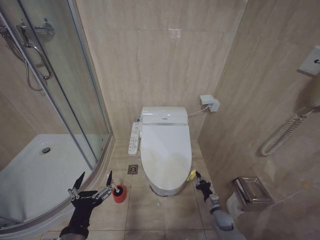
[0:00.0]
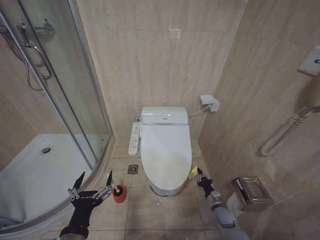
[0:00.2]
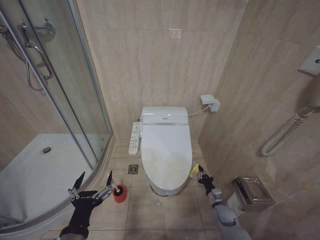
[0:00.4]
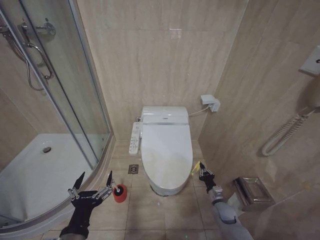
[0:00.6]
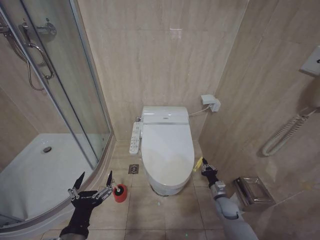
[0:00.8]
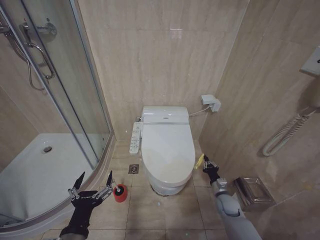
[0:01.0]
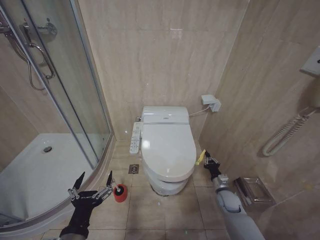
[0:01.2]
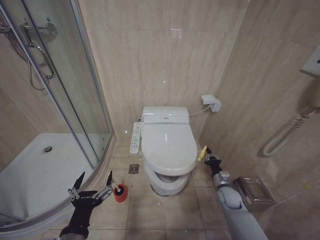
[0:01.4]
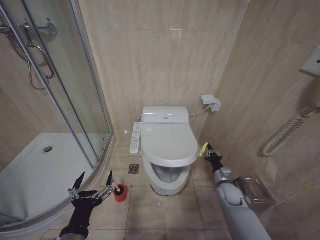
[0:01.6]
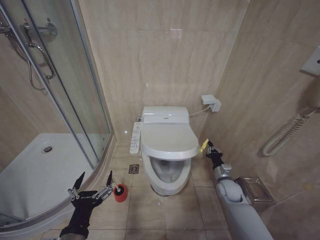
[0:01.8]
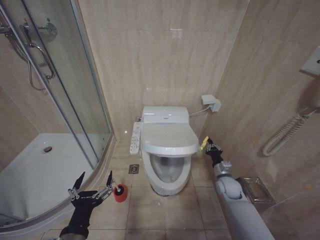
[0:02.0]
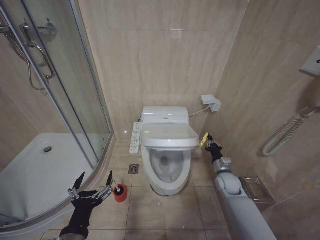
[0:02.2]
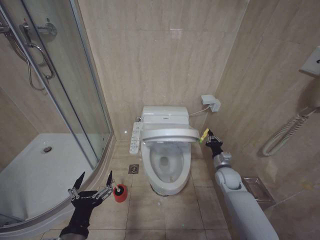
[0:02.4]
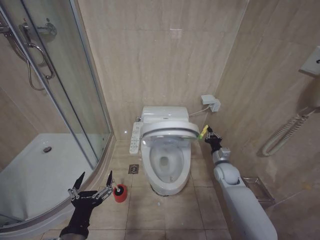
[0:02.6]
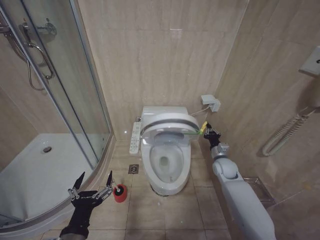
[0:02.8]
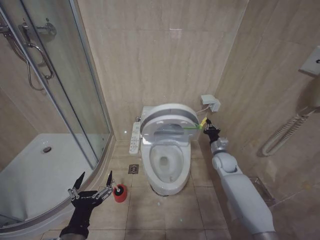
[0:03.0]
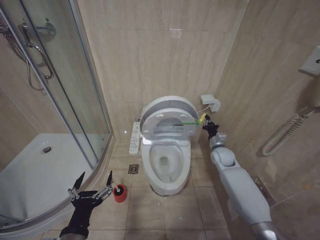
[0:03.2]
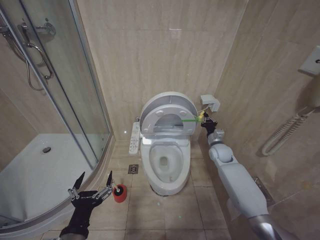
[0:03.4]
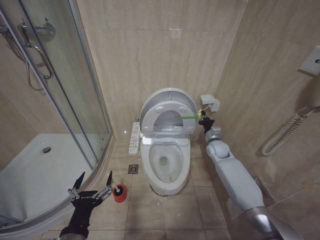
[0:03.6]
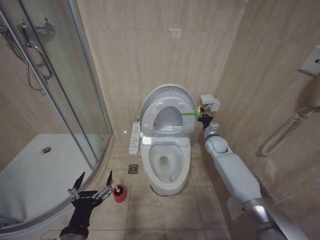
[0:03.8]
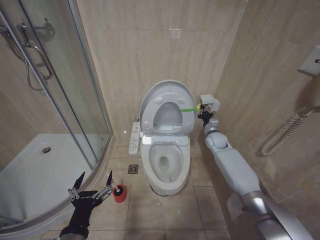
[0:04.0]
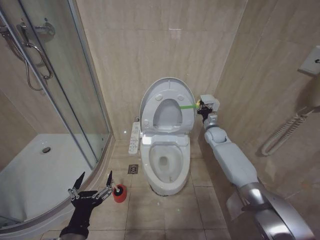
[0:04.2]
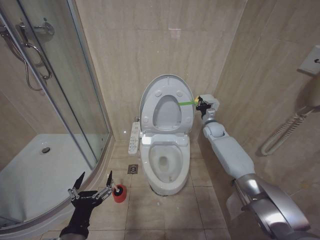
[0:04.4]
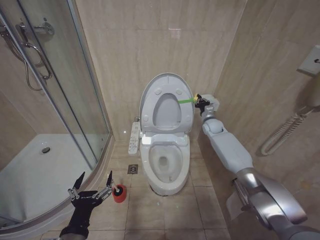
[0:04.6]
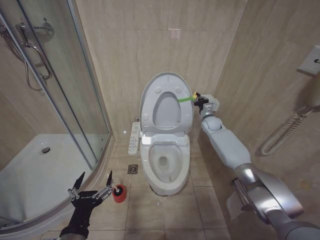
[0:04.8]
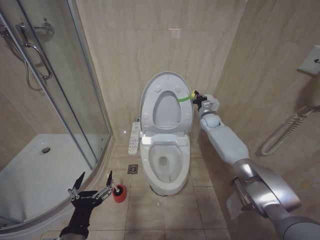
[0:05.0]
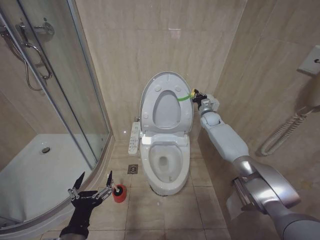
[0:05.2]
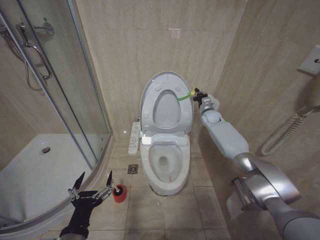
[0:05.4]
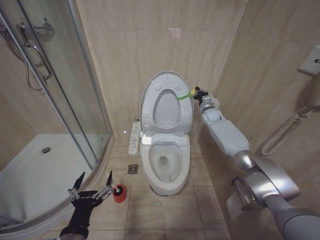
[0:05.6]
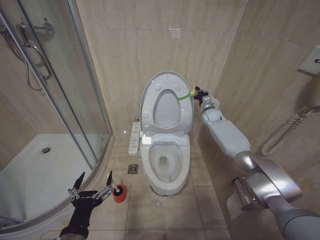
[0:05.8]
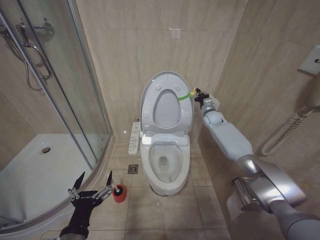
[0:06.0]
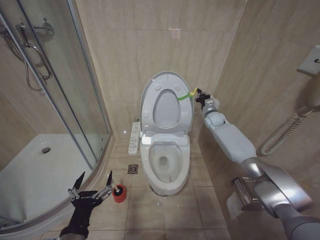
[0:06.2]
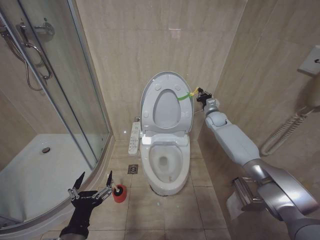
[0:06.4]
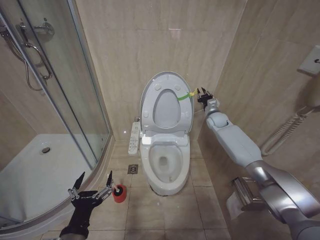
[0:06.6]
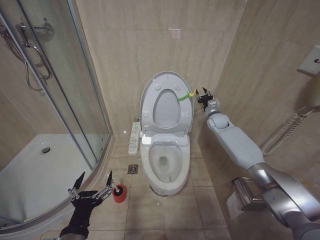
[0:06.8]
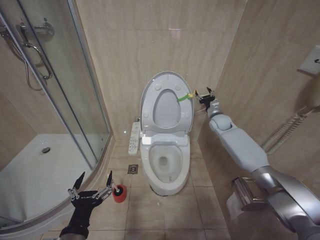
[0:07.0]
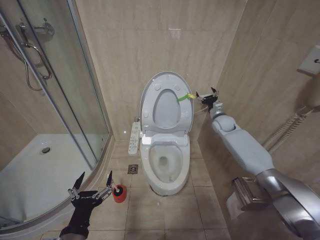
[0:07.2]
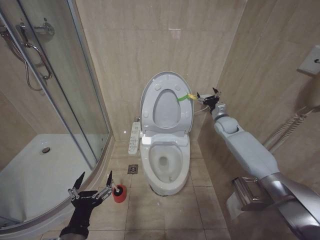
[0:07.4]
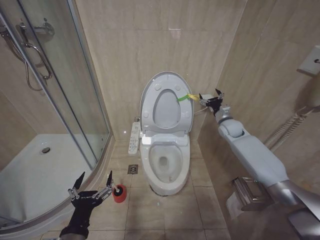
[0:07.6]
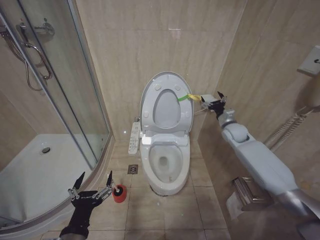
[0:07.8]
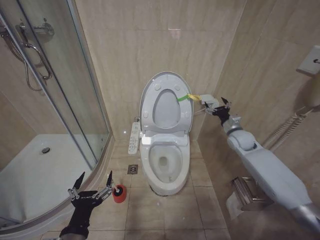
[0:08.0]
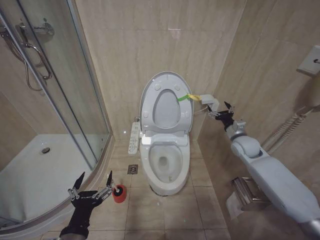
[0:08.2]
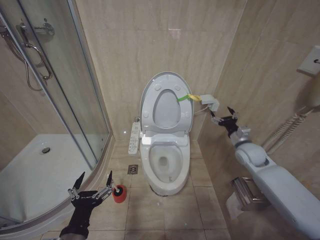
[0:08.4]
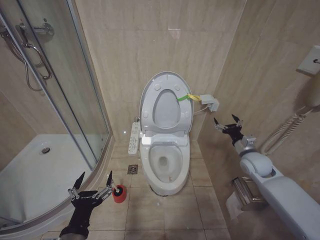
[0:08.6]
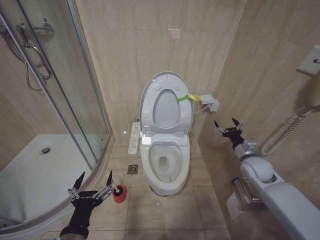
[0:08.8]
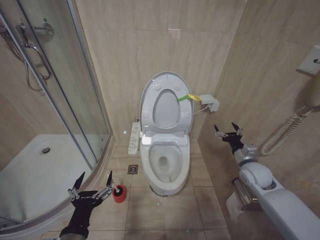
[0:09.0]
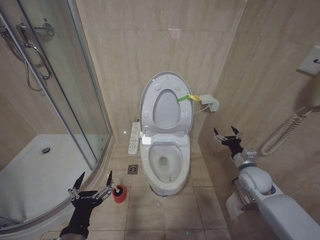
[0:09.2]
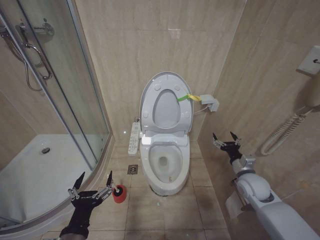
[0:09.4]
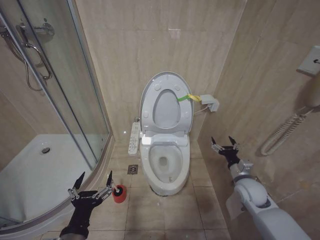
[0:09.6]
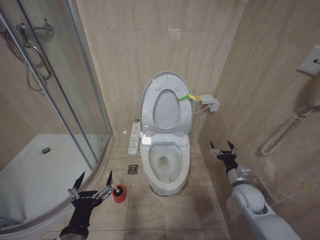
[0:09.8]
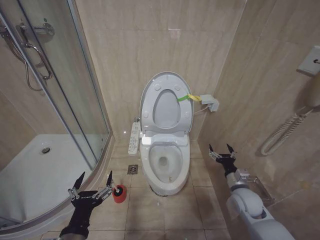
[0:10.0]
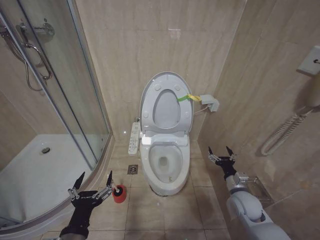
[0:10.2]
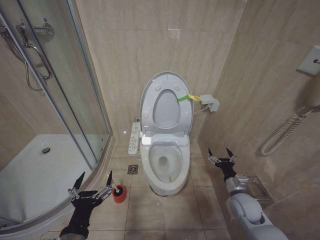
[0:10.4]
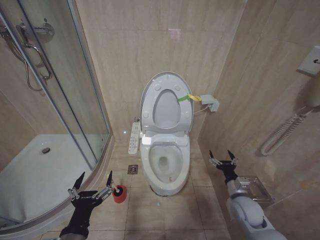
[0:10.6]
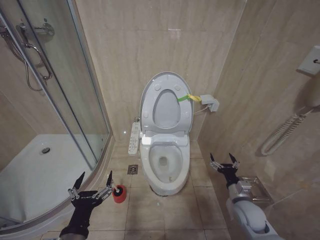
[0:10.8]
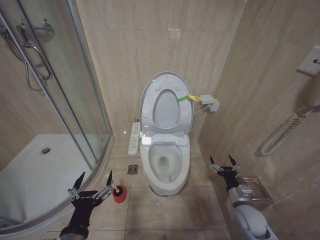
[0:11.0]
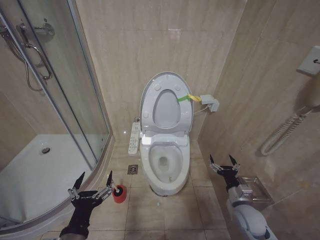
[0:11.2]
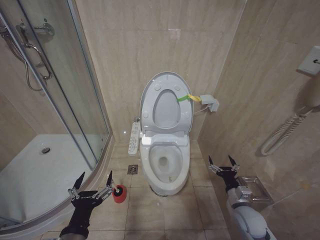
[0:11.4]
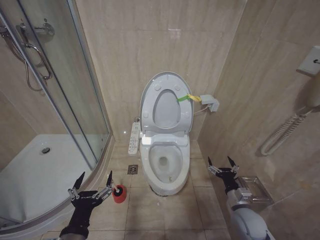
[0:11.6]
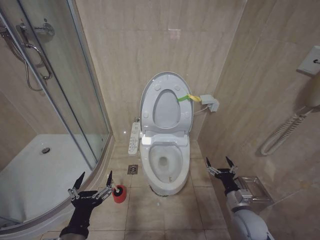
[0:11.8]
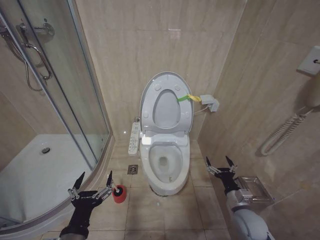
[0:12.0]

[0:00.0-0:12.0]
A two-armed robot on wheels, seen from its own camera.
Task of the whole recording: Open the toilet lid, clean the toilet bowl with a toilet brush, close the toilet lid, and flush.
0:00.0 to 0:01.6: The right gripper is displaced upward and forward by approximately 15 cm.
0:01.6 to 0:03.0: The right gripper moves upward and forward, approximately 15 cm.
0:03.0 to 0:04.4: The right gripper shifts roughly 15 cm forward and upward.
0:04.4 to 0:06.0: The right gripper goes roughly 5 cm forward and upward.
0:06.0 to 0:07.6: The right gripper is displaced backward by about 10 cm, and opens.
0:07.6 to 0:09.0: The right gripper moves backward and downward, about 20 cm.
0:09.0 to 0:10.4: The right gripper shifts some 15 cm downward, backward and to the left.
0:10.4 to 0:12.0: The right gripper goes about 5 cm backward.

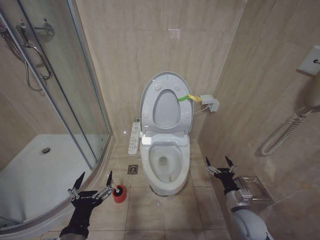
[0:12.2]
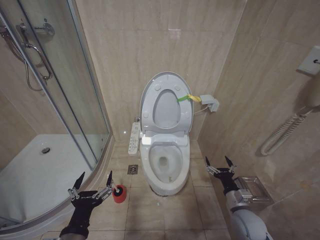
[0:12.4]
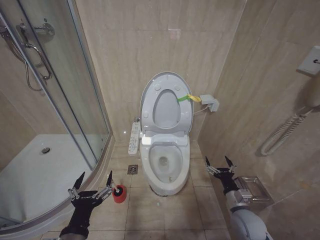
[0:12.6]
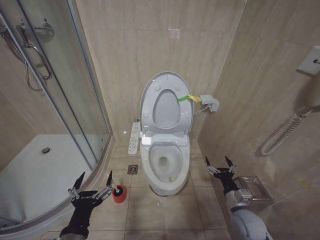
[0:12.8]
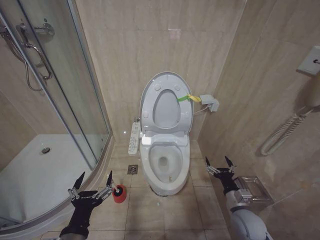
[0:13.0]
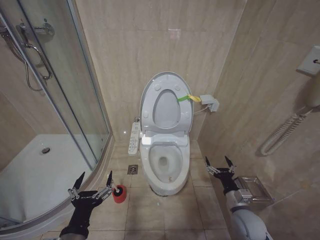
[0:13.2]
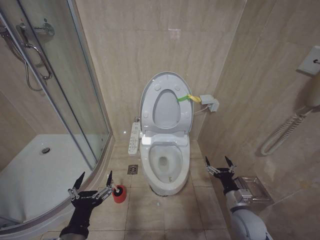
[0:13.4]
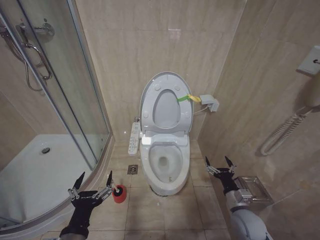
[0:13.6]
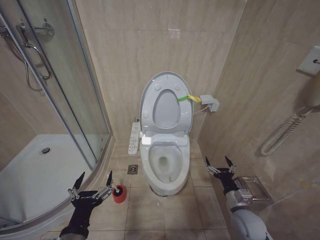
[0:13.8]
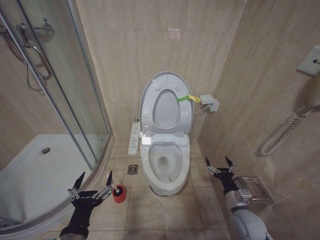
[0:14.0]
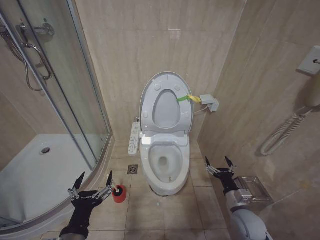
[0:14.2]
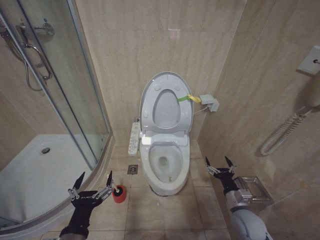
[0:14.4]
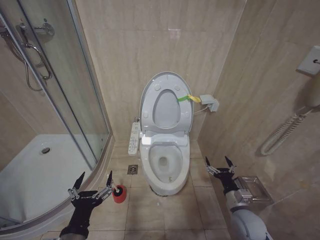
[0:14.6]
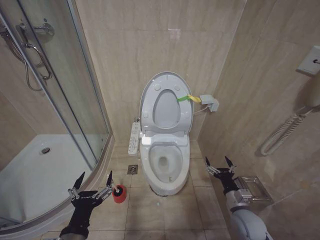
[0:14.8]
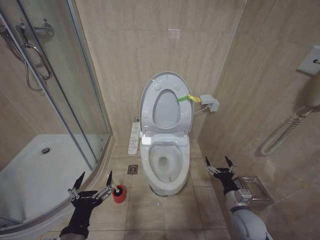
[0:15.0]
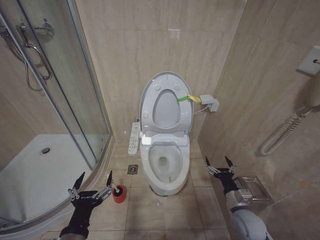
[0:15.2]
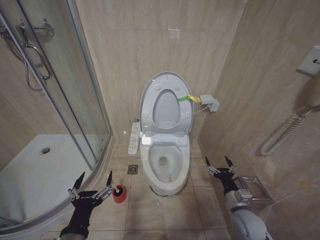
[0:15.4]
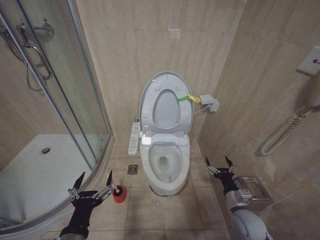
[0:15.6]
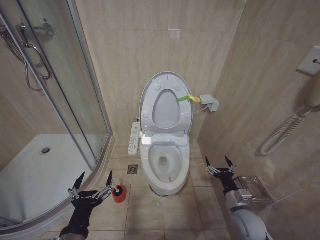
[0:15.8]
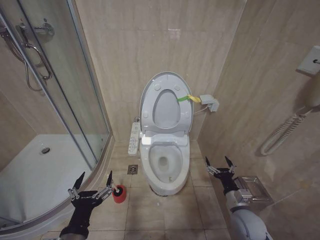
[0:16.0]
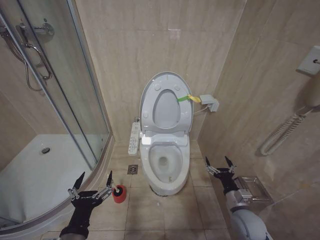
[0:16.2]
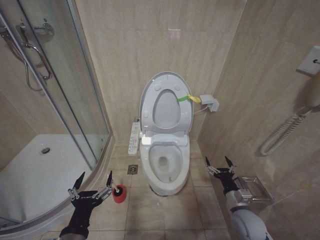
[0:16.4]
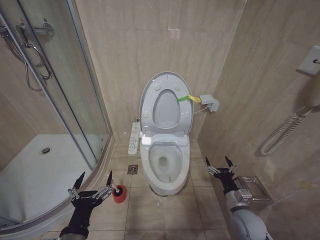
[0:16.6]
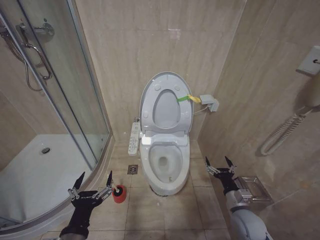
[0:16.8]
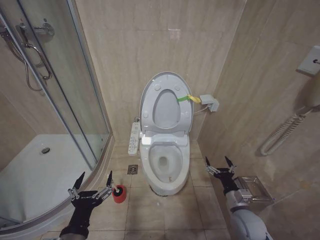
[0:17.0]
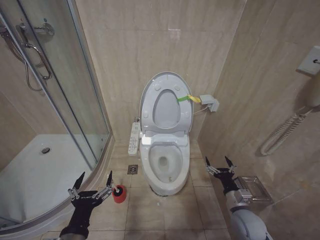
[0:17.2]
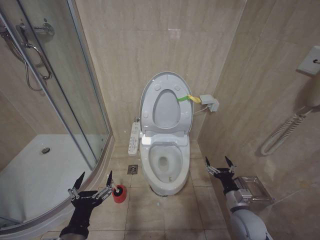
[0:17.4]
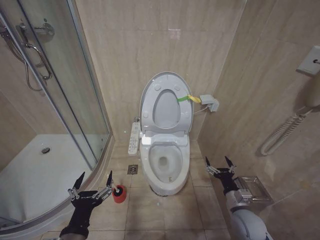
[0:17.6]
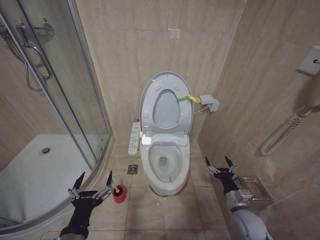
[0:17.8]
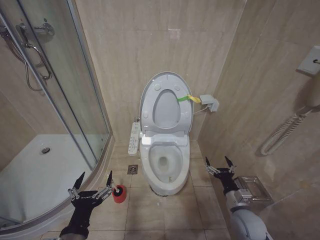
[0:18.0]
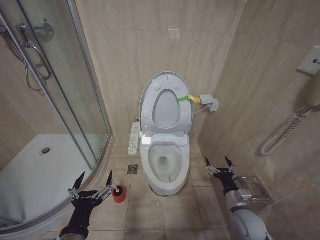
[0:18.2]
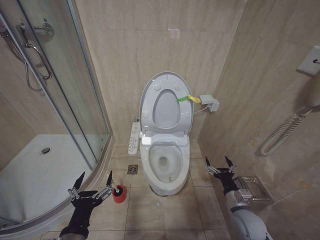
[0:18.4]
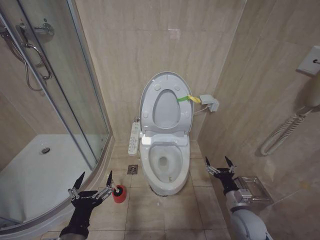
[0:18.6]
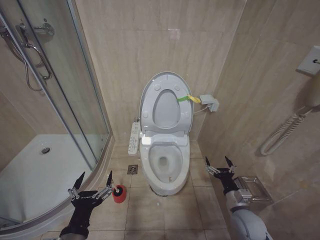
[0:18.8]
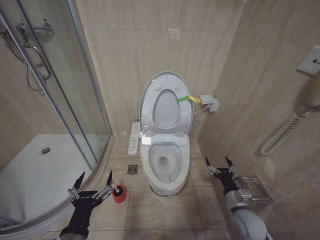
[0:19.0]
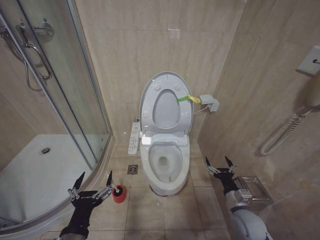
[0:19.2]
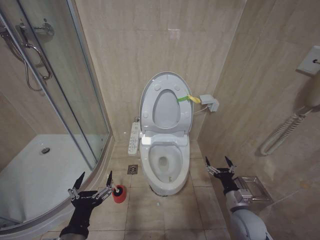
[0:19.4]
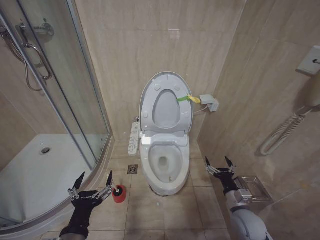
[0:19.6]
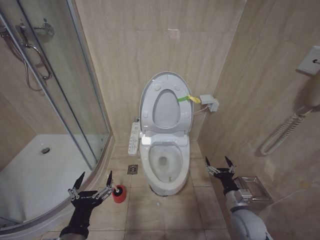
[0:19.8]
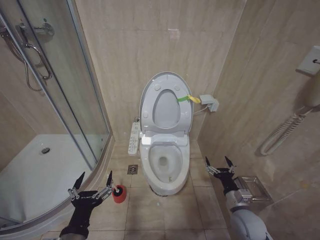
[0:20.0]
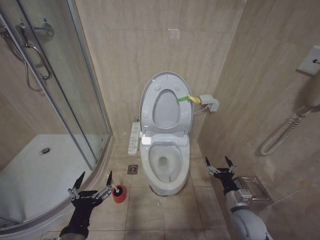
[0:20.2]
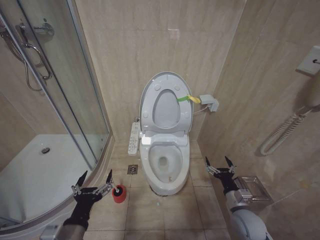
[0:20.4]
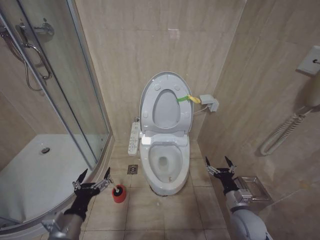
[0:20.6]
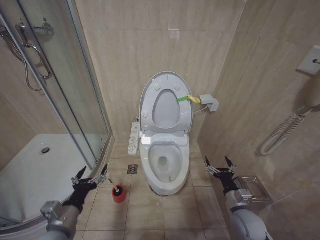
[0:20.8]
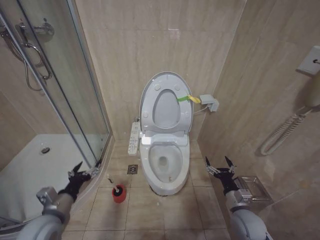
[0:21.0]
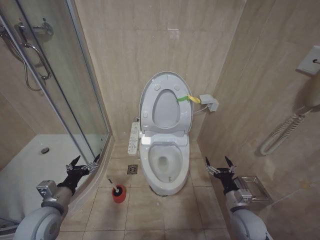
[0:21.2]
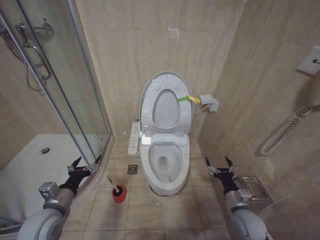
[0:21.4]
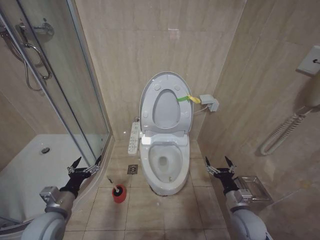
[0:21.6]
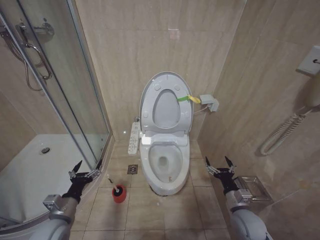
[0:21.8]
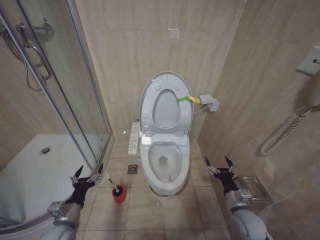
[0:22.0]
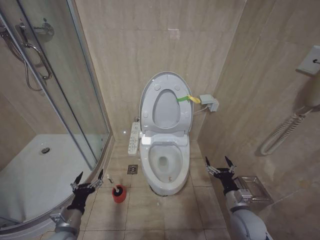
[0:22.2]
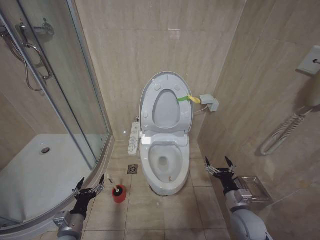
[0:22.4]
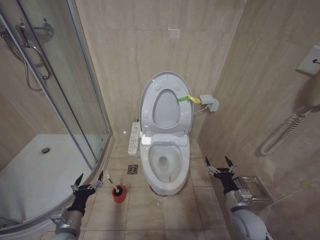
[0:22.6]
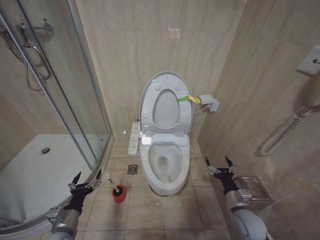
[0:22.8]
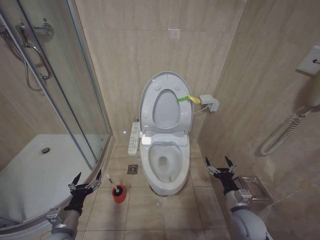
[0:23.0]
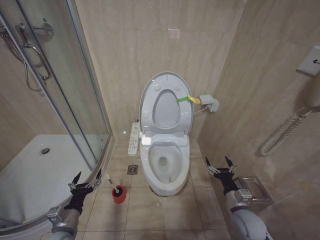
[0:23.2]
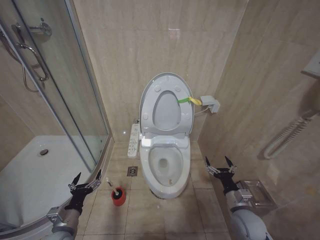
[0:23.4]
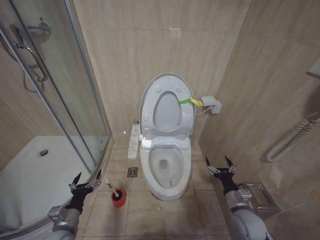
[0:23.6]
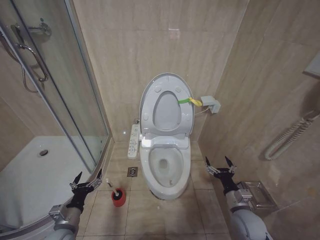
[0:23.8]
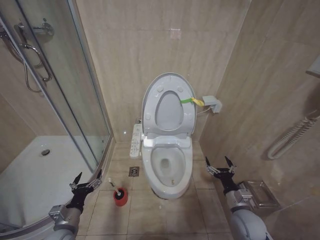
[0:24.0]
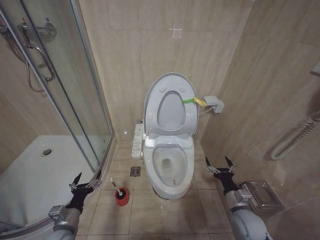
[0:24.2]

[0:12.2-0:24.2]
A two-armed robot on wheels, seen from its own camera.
Task of the whole recording: Open the toilet lid, clean the toilet bowl with a toilet brush, close the toilet lid, and flush.
0:12.2 to 0:19.8: Both grippers stay put.
0:19.8 to 0:21.2: The left gripper goes approximately 20 cm forward and to the left.
0:21.2 to 0:22.6: The left gripper shifts about 10 cm downward.
0:22.6 to 0:24.2: The grippers move only a little.
